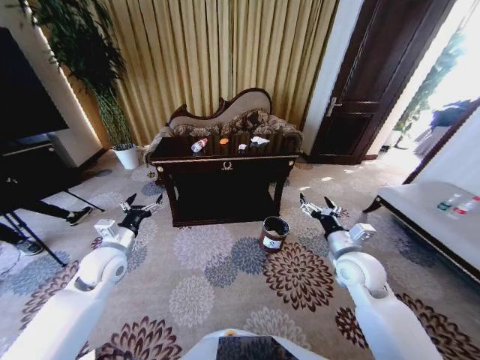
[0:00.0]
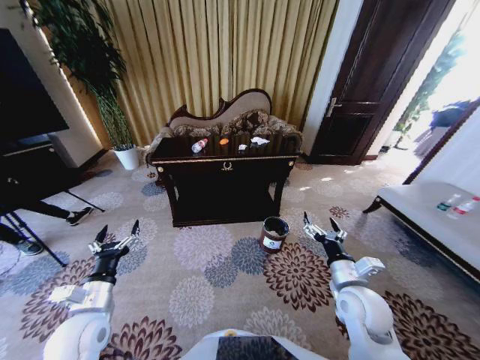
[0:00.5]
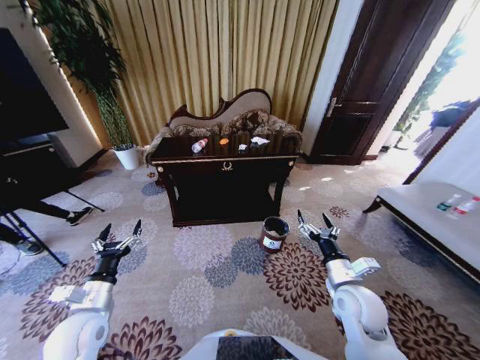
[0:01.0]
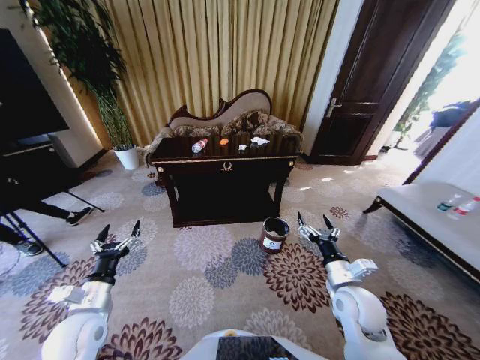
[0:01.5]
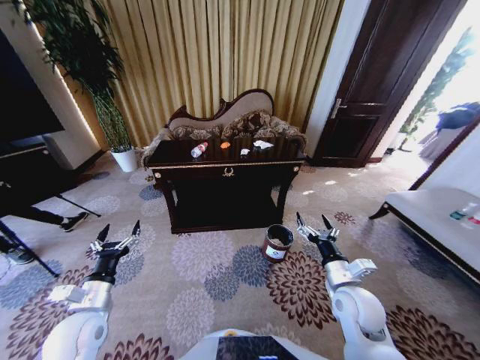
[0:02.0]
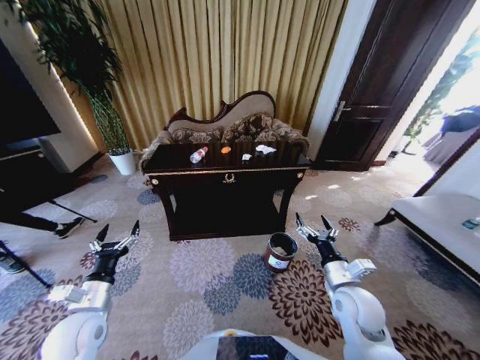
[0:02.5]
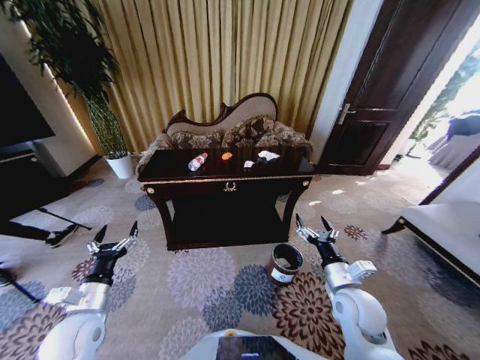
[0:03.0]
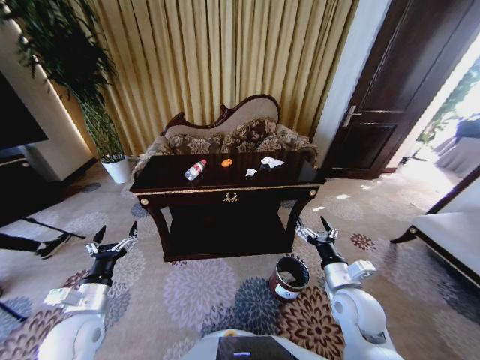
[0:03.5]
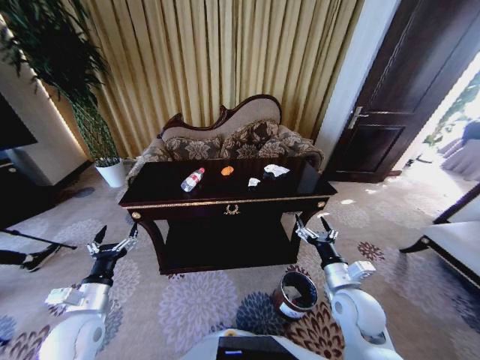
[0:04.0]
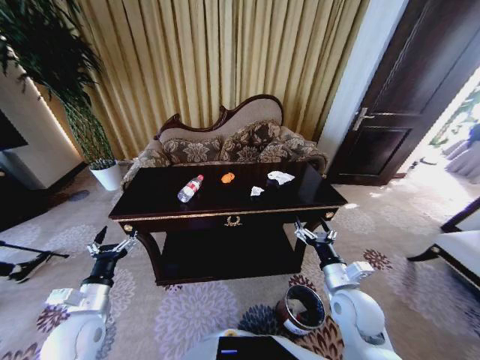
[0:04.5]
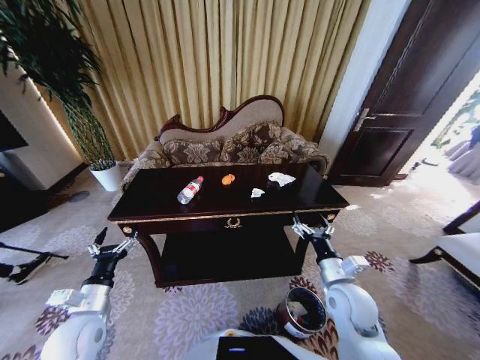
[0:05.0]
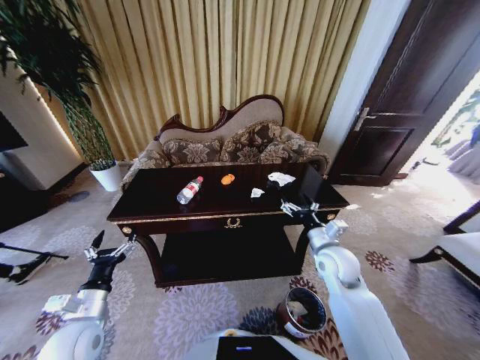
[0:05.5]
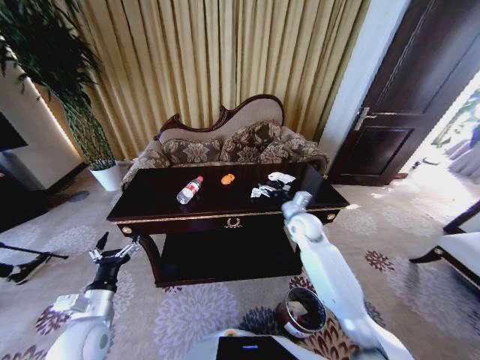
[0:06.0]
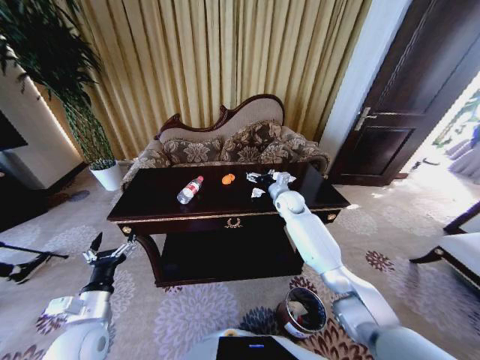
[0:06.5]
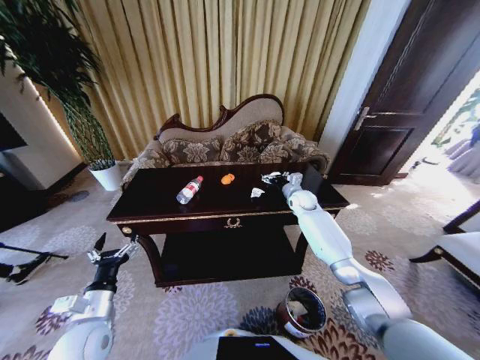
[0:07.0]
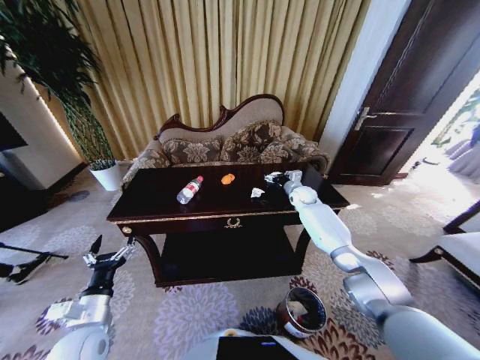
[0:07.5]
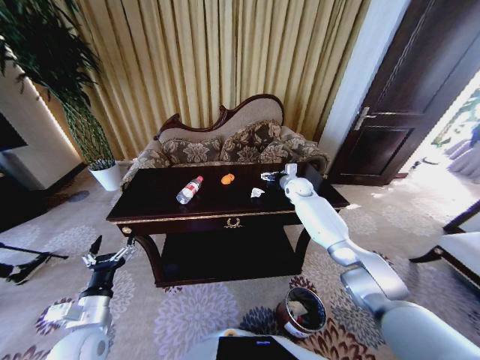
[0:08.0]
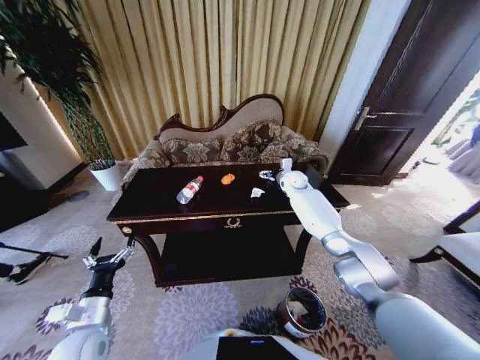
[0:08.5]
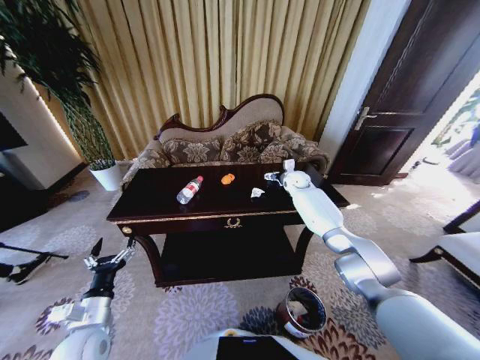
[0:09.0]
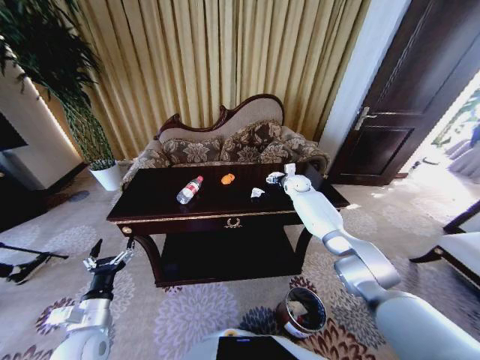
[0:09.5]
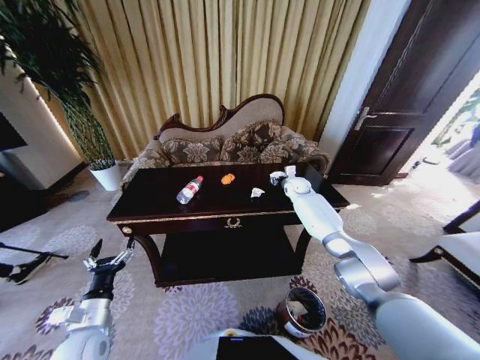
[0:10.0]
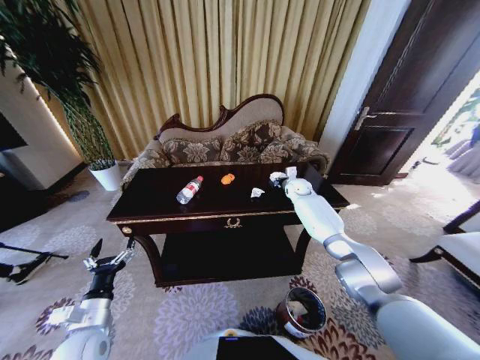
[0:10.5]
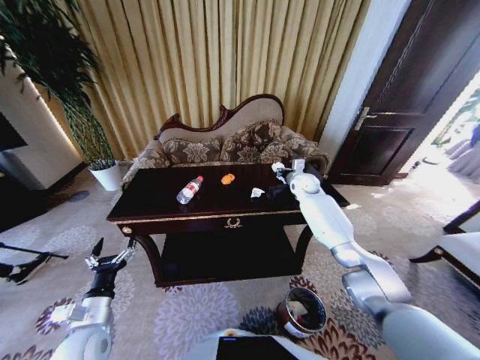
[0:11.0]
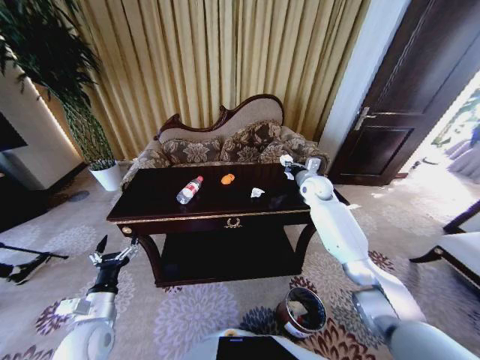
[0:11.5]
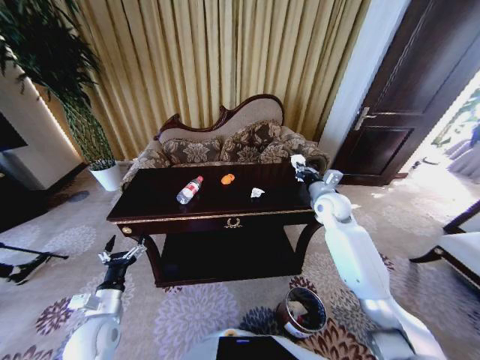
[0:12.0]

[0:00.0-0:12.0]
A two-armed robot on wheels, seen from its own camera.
Task of the whole recording: Move to the front of the table and place the trash on the table into the trash bin.
0:04.0 to 0:06.0: The right gripper is displaced forward by roughly 25 cm.
0:06.0 to 0:08.0: The right gripper heads forward, covering roughly 15 cm.
0:08.0 to 0:10.0: The right gripper closes.
0:10.0 to 0:12.0: The right gripper moves backward, roughly 15 cm, and closes.

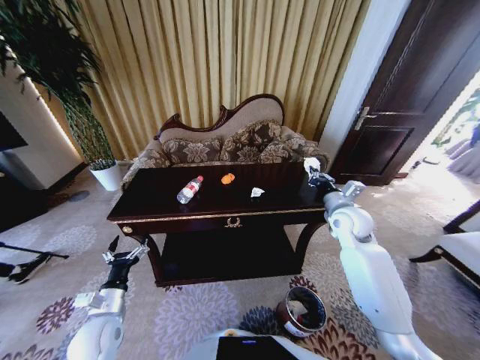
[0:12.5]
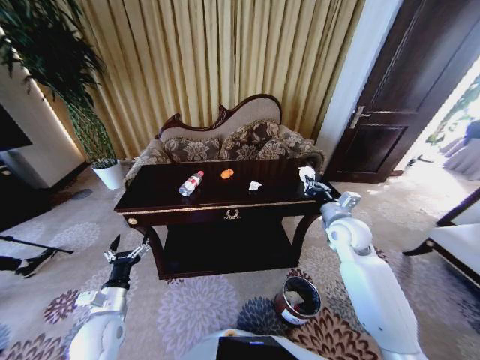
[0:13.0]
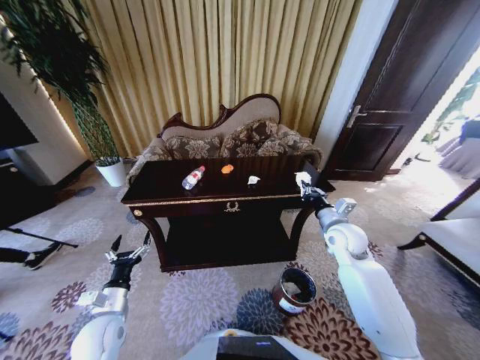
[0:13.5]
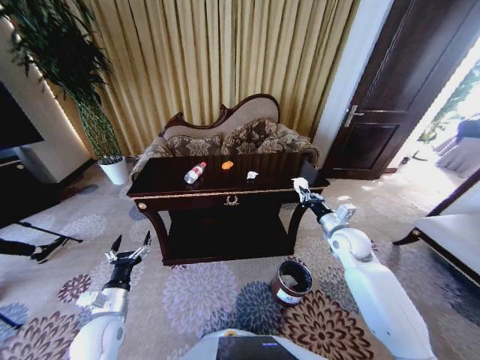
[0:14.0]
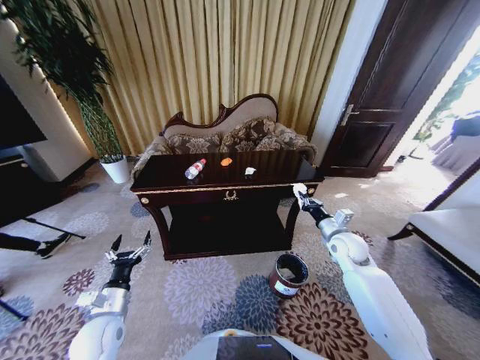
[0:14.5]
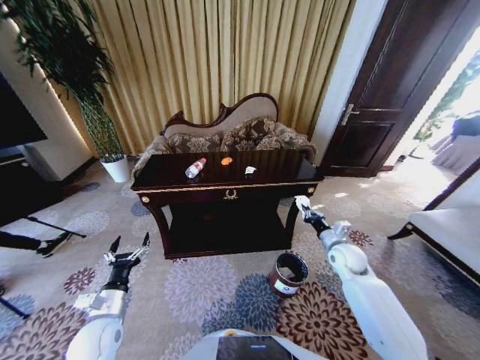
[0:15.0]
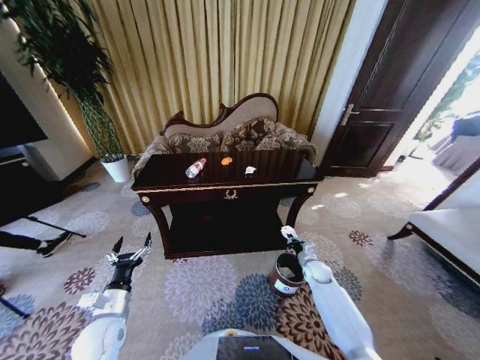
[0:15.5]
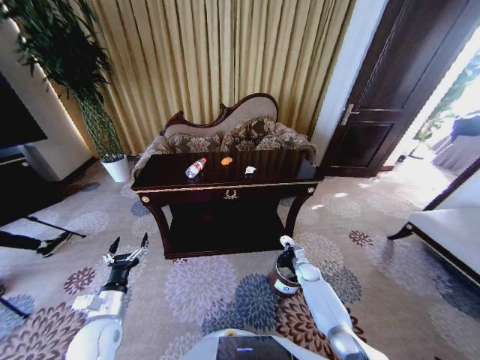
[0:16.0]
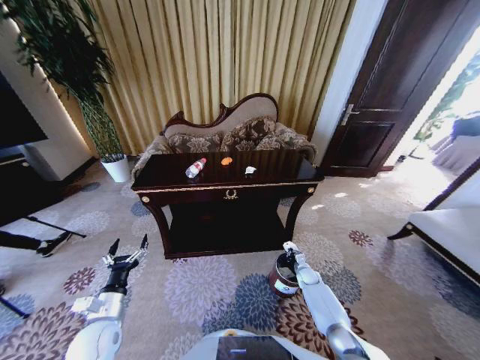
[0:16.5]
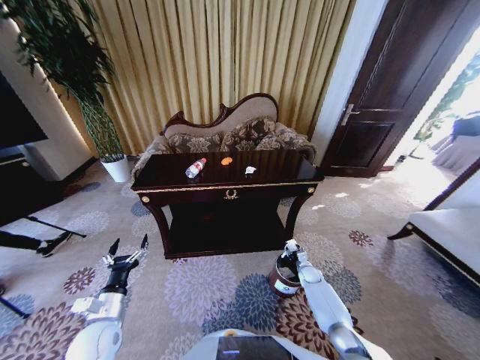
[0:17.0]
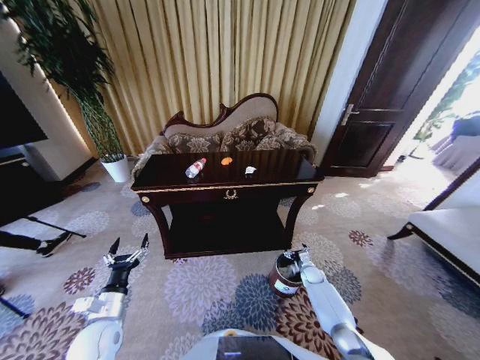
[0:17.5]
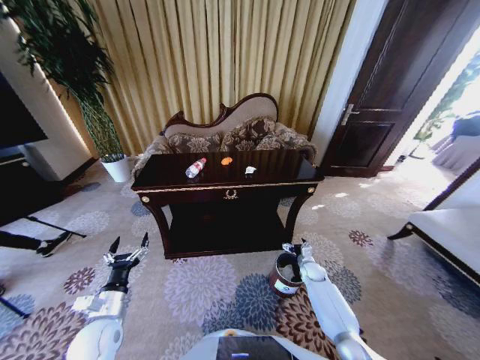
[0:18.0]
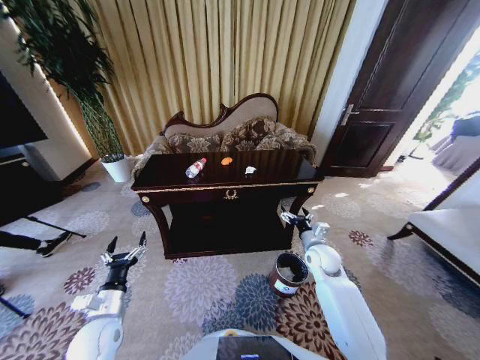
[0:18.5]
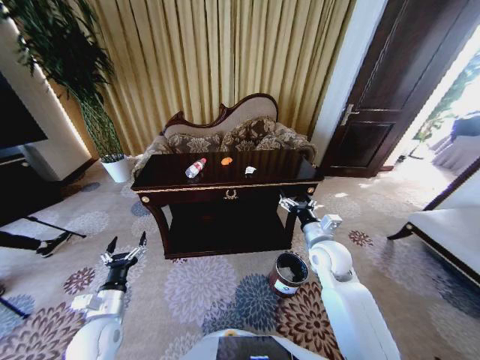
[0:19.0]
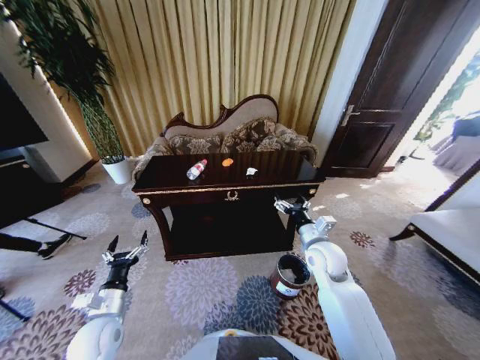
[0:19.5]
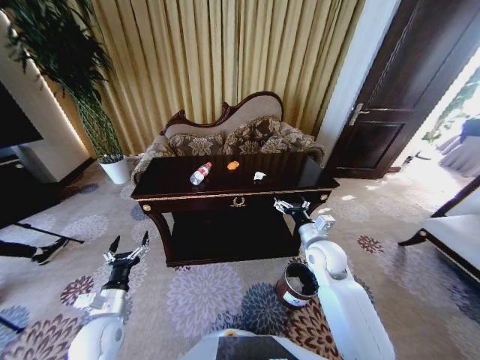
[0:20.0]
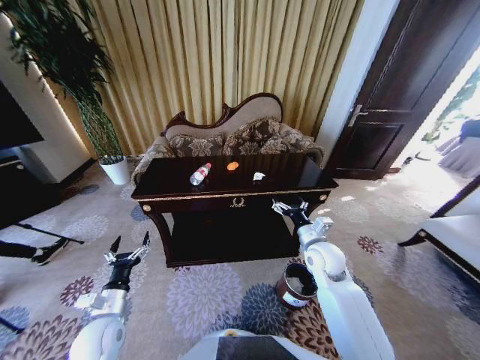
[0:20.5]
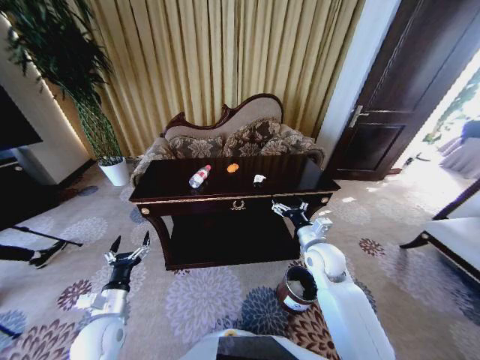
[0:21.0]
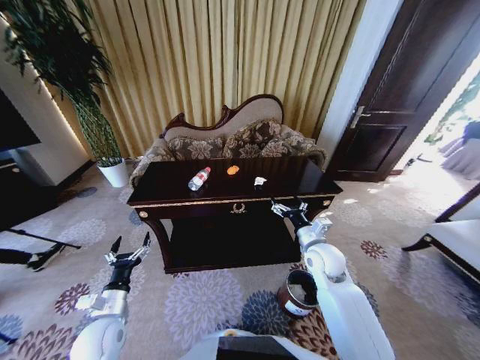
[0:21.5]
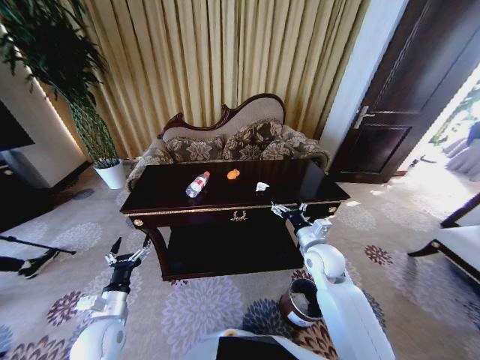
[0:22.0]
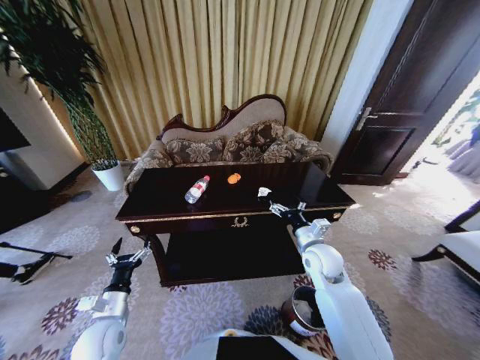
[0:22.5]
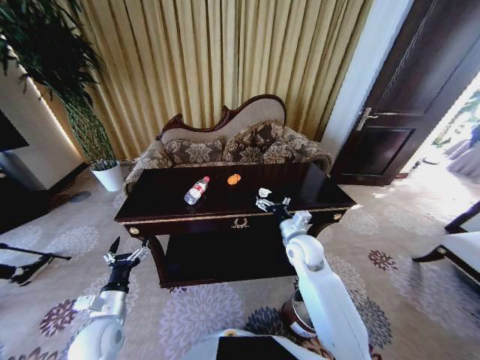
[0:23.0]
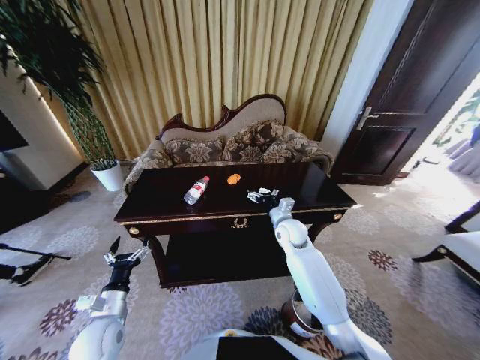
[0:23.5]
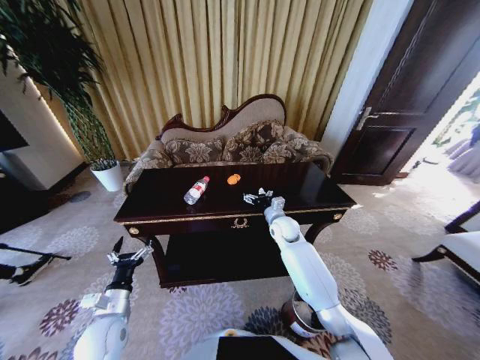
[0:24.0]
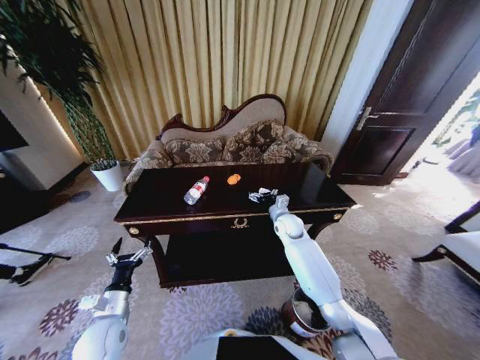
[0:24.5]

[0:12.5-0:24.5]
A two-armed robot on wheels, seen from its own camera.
Task of the whole recording: Move to the front of the table and place the trash on the table into the trash bin.
0:12.5 to 0:14.5: The right gripper heads downward, covering roughly 10 cm.
0:14.5 to 0:16.5: The right gripper is displaced downward by roughly 30 cm.
0:16.5 to 0:18.5: The right gripper goes approximately 25 cm upward, and opens.
0:18.5 to 0:20.5: The right gripper heads upward, covering approximately 5 cm.
0:22.5 to 0:24.5: The right gripper is displaced forward by roughly 15 cm.

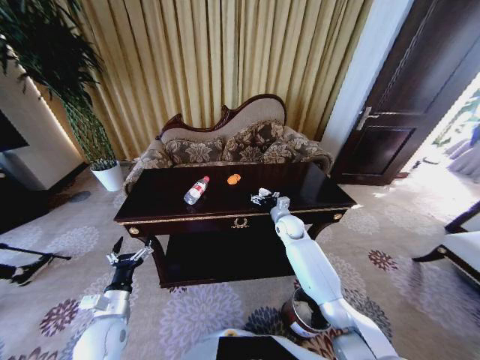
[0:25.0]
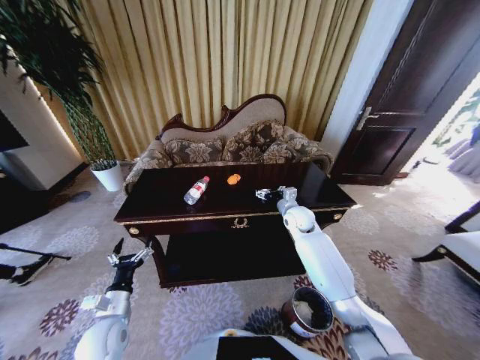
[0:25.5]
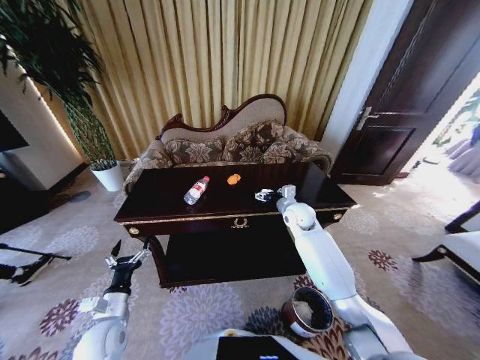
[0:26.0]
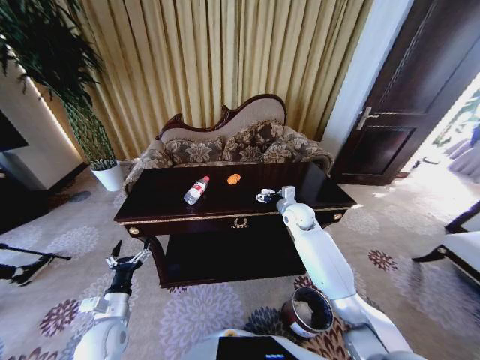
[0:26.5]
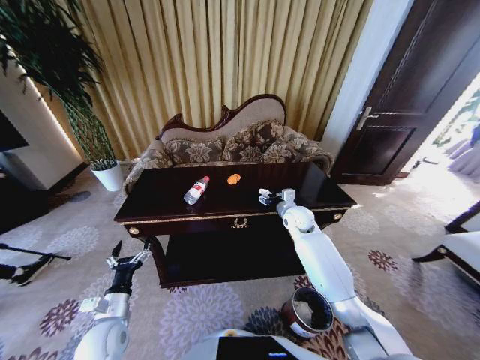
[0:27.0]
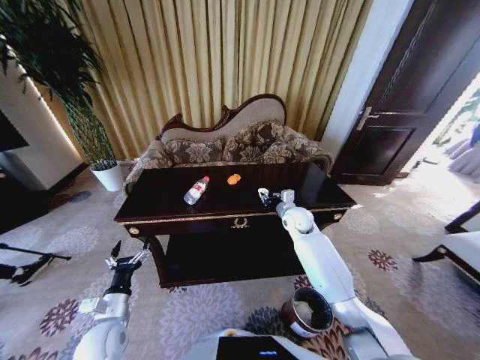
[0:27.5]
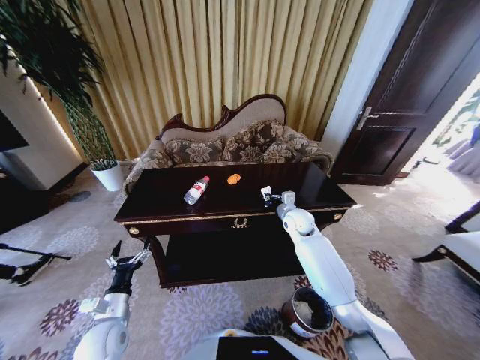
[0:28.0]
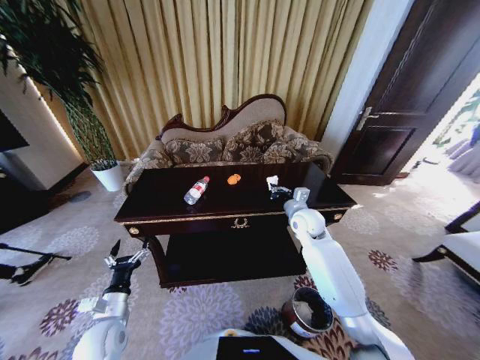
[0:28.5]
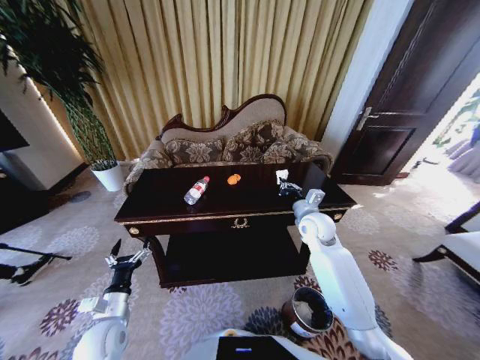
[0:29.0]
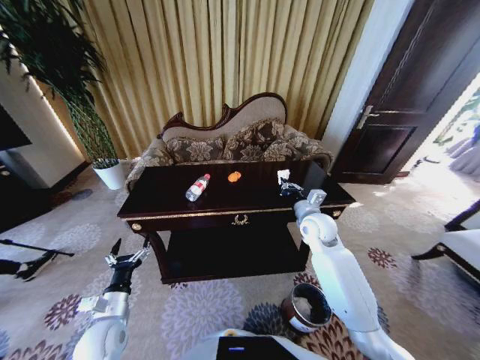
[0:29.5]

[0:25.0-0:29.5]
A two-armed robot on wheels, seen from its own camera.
Task of the whole recording: Move to the front of the table and place the trash on the table into the trash bin.
0:25.0 to 0:27.0: The right gripper heads upward, covering approximately 5 cm.
0:27.0 to 0:29.5: The right gripper is displaced backward by roughly 5 cm, and closes.
